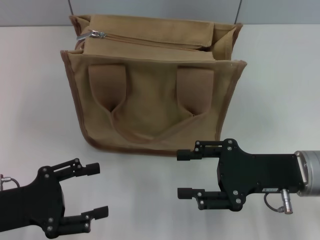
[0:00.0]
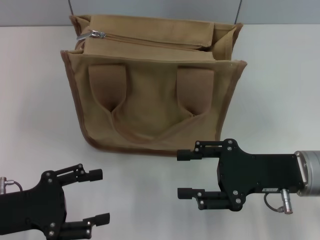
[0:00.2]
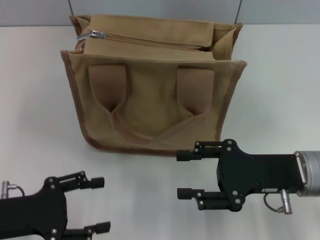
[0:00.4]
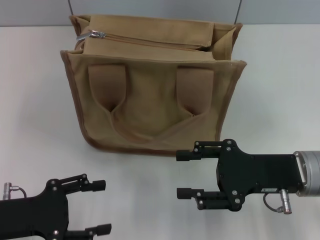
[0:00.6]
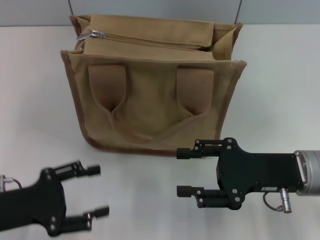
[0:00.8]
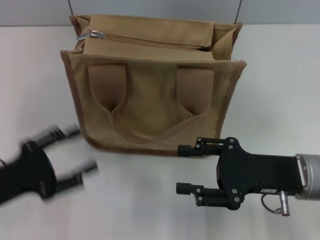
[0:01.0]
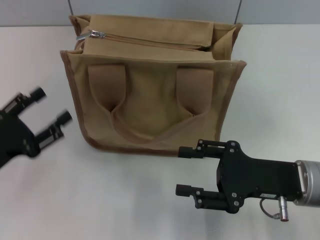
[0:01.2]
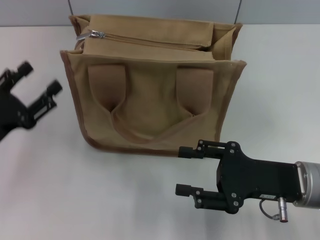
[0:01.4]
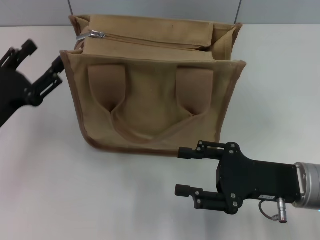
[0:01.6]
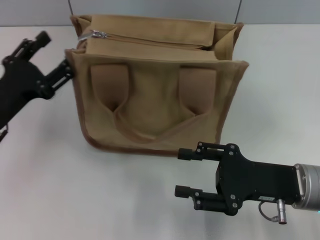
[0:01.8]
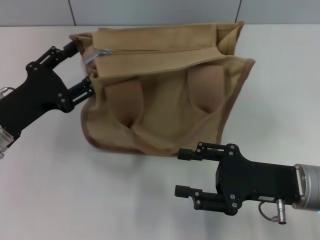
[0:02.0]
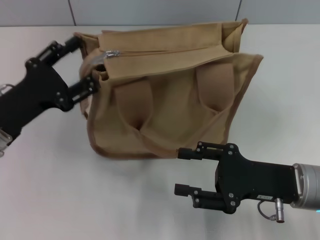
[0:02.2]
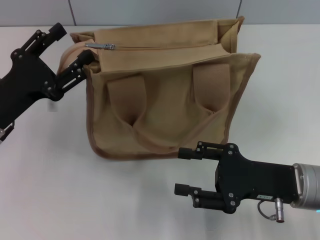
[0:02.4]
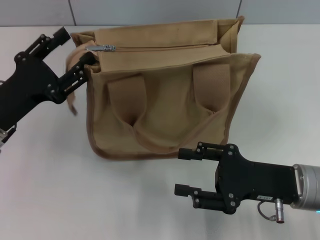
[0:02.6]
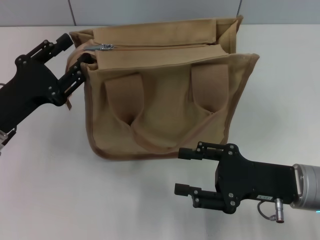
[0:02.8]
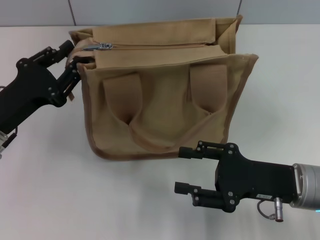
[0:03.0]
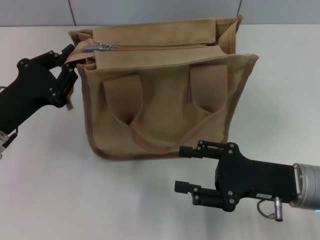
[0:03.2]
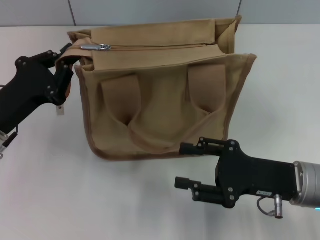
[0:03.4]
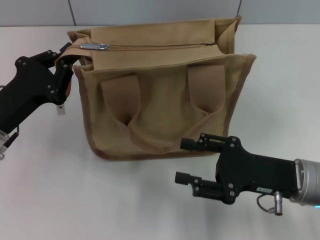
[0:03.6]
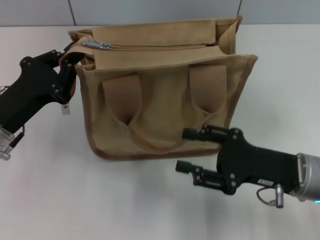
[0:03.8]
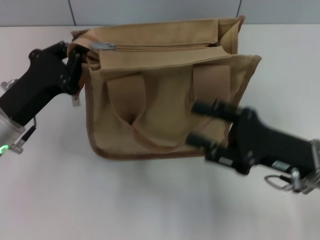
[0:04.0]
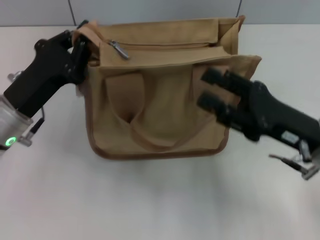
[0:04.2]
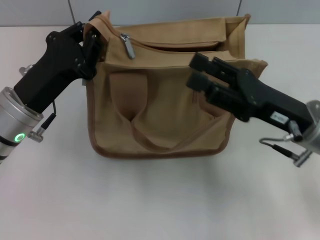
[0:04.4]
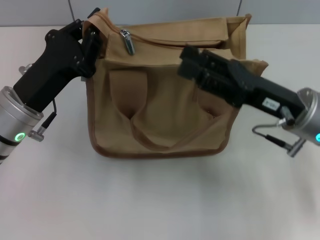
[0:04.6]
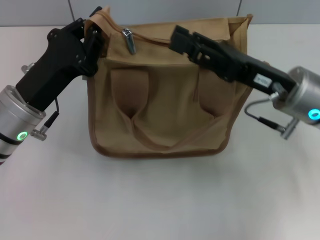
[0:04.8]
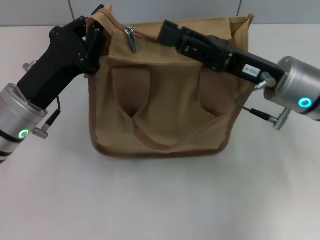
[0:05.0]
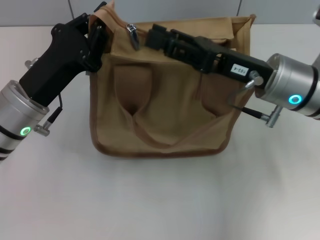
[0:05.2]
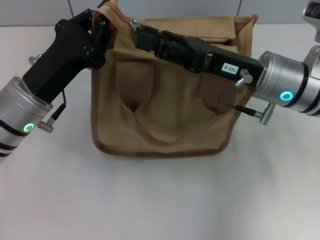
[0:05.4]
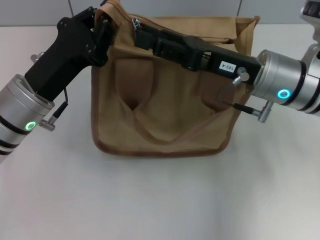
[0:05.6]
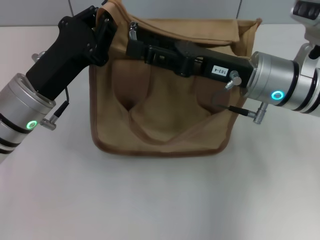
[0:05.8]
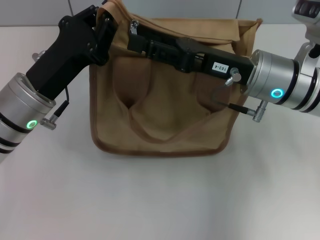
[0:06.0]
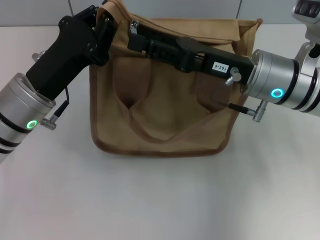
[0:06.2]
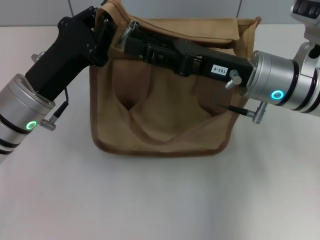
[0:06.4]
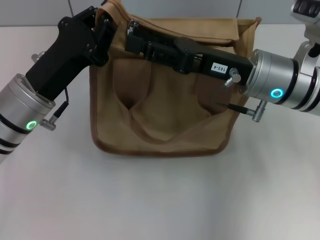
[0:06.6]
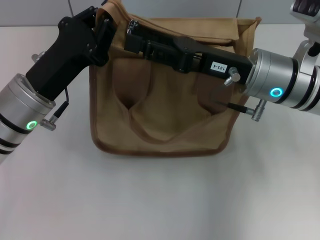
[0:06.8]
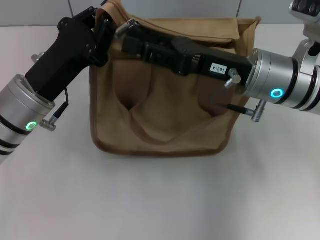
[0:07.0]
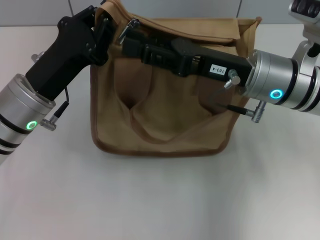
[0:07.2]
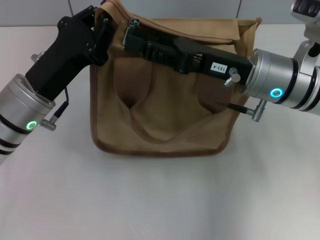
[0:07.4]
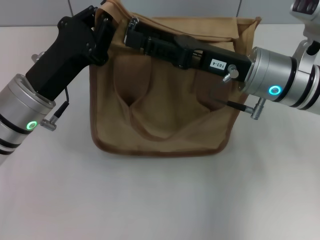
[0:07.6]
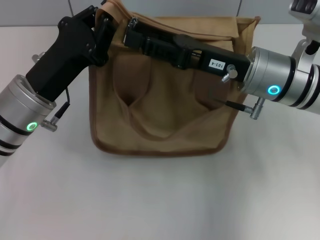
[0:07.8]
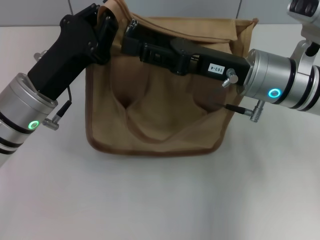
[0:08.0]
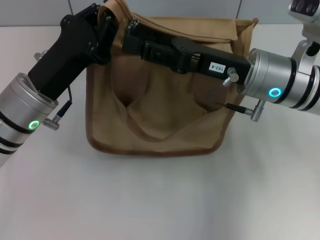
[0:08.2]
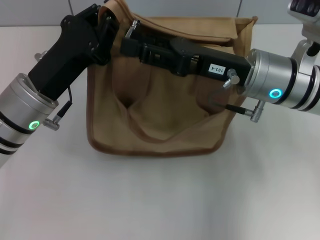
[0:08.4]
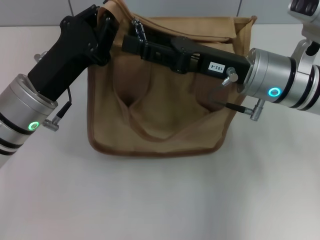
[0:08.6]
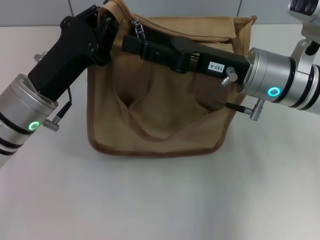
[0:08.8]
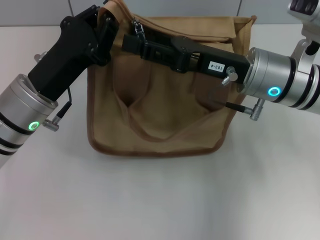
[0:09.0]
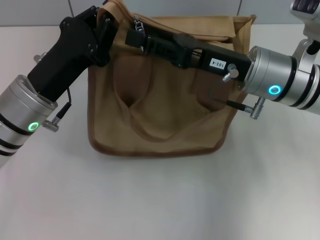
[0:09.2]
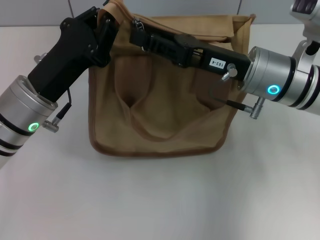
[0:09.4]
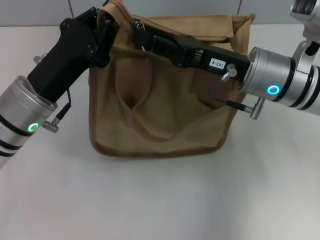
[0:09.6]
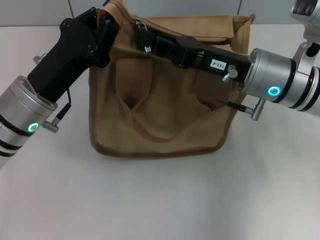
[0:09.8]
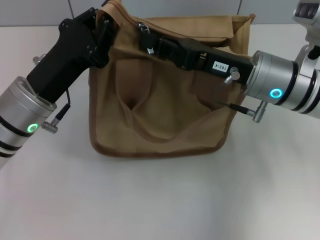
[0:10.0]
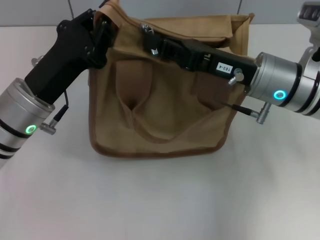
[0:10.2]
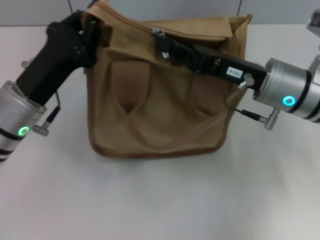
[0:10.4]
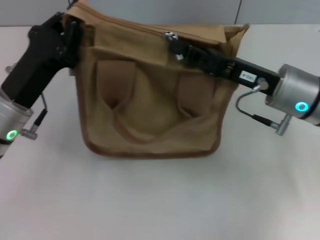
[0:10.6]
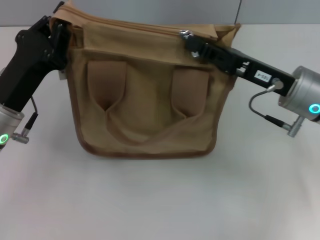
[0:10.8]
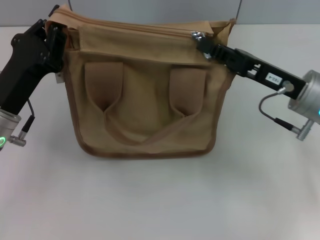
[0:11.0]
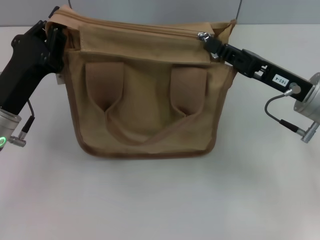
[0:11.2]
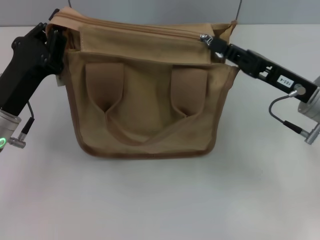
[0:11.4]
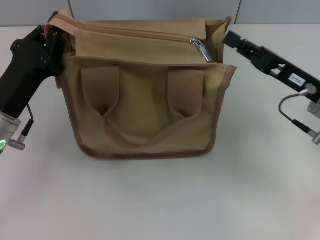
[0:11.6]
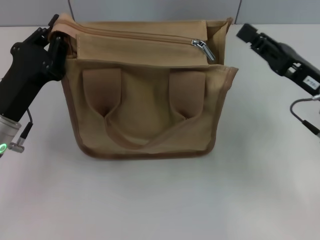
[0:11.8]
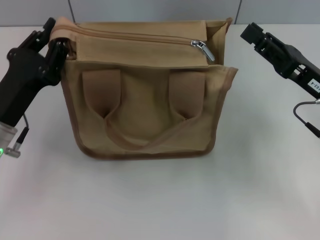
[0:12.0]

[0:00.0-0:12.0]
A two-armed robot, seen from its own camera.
Step, 0:00.0 to 0:11.4: Pull up the zipper with your right hand.
0:00.0 to 0:01.6: The left gripper goes roughly 5 cm forward.
0:01.6 to 0:03.0: The left gripper closes its fingers.
0:03.0 to 0:04.4: The left gripper is displaced to the right by approximately 5 cm, and closes up. Meanwhile the right gripper shifts by approximately 5 cm.
0:04.4 to 0:06.0: The right gripper moves forward and to the left, about 10 cm.
0:06.0 to 0:09.0: The two grippers keep their place.
0:09.0 to 0:10.4: The right gripper closes.
0:10.4 to 0:12.0: The left gripper changes place by some 5 cm. Meanwhile the right gripper heads to the right, covering roughly 10 cm.

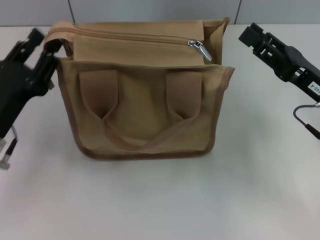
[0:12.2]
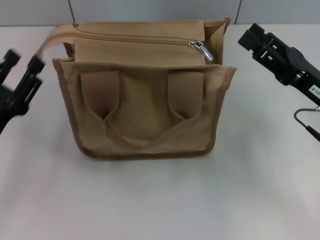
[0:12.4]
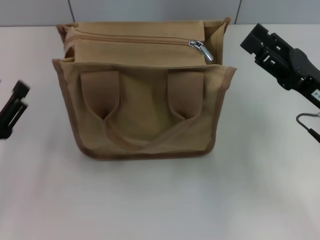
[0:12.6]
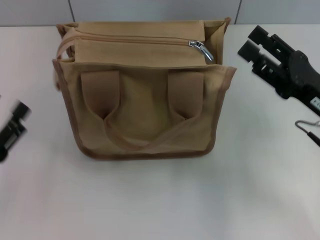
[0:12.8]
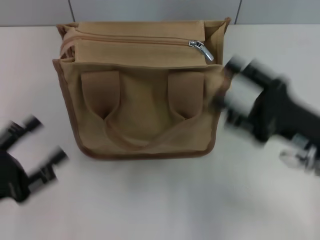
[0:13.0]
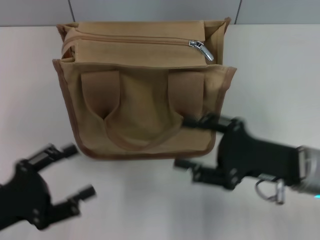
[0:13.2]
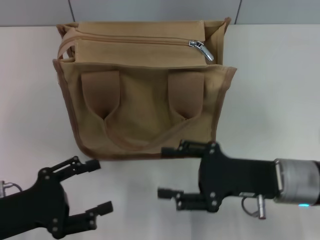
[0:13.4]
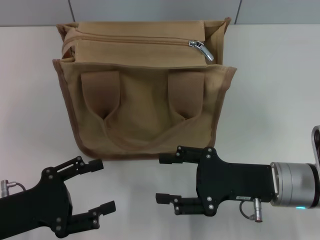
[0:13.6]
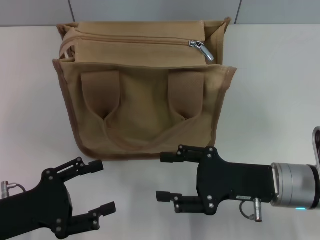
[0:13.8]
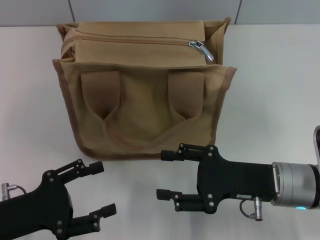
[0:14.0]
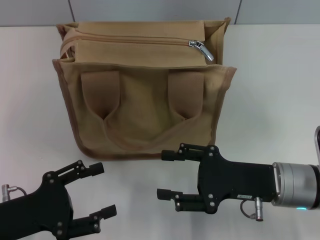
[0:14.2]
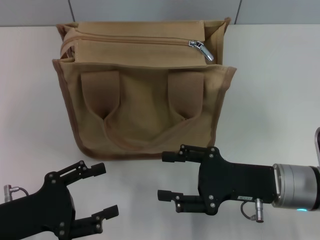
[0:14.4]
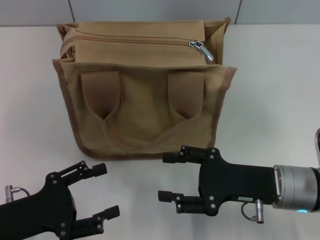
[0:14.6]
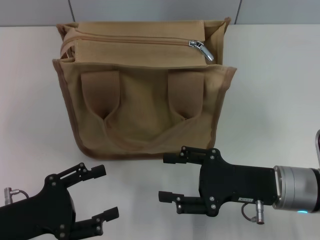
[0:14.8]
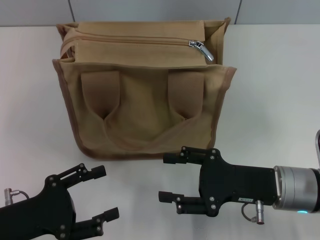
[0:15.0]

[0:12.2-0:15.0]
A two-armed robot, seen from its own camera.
0:12.2 to 0:13.6: The right gripper travels to the left by roughly 5 cm, and opens. Meanwhile the left gripper is displaced backward by roughly 5 cm, and opens its fingers.
0:13.6 to 0:15.0: The two grippers keep their place.

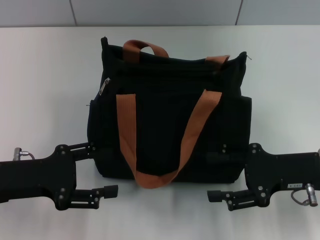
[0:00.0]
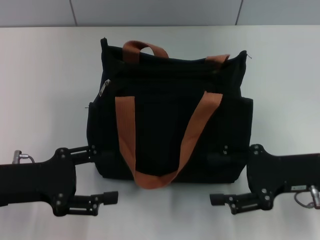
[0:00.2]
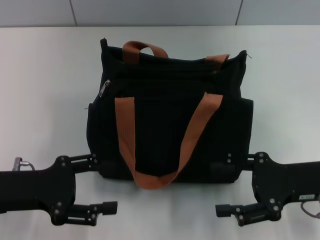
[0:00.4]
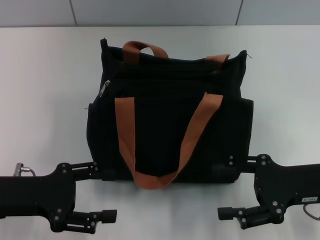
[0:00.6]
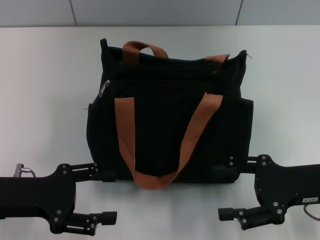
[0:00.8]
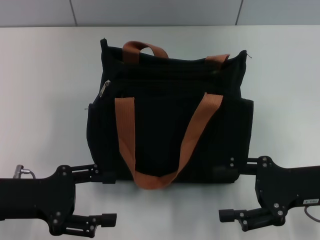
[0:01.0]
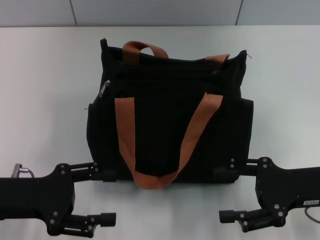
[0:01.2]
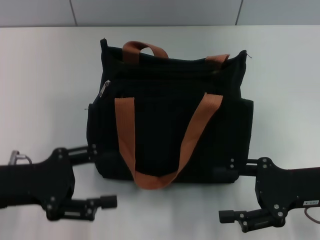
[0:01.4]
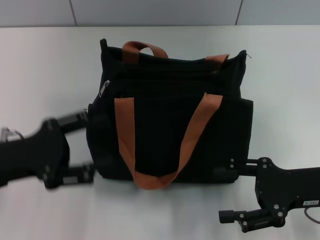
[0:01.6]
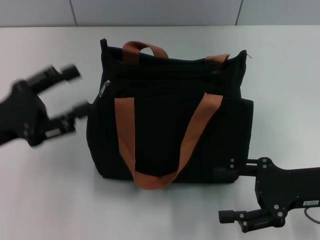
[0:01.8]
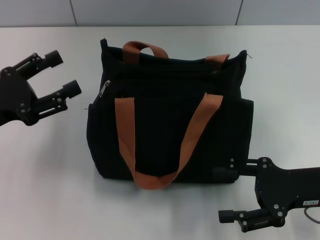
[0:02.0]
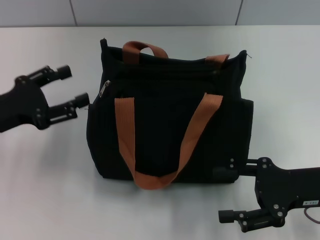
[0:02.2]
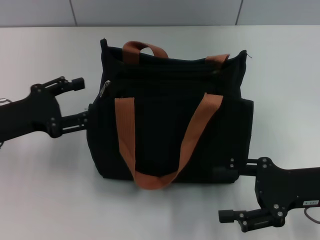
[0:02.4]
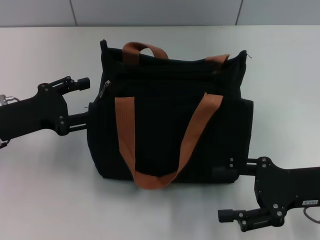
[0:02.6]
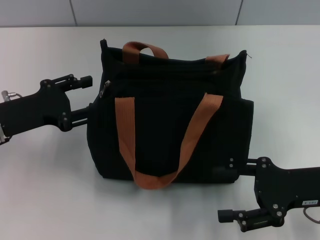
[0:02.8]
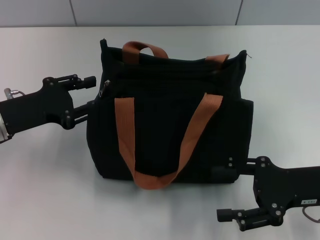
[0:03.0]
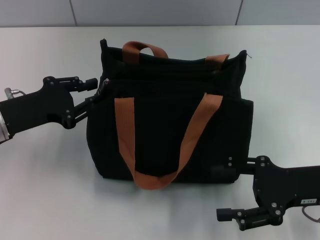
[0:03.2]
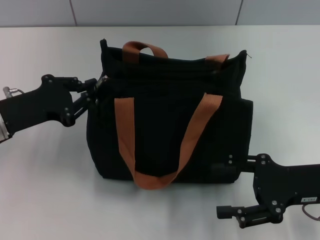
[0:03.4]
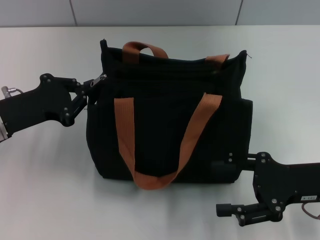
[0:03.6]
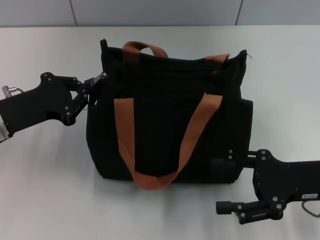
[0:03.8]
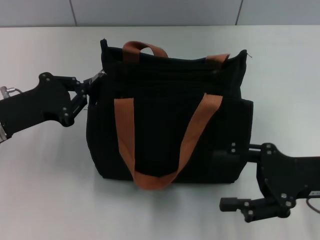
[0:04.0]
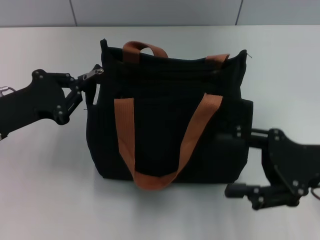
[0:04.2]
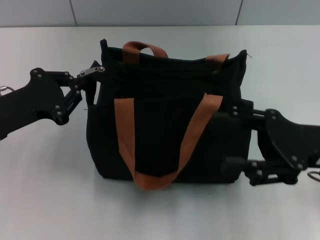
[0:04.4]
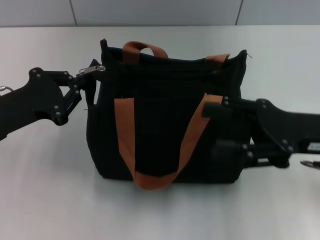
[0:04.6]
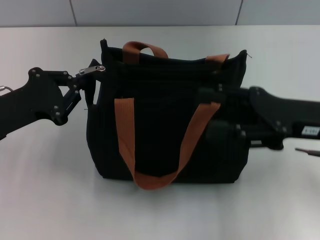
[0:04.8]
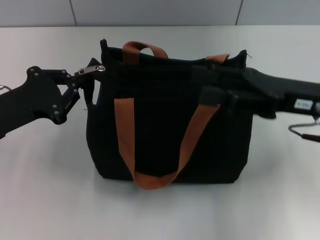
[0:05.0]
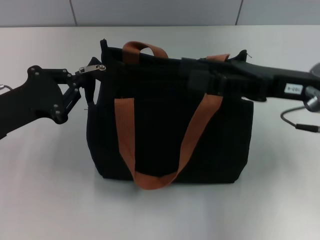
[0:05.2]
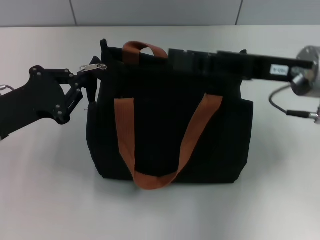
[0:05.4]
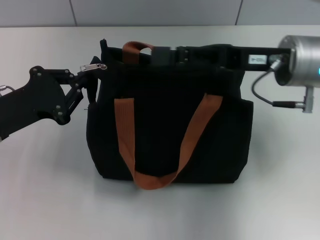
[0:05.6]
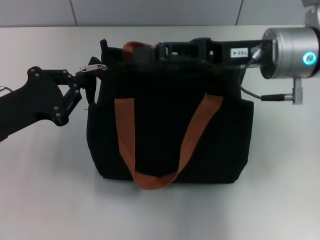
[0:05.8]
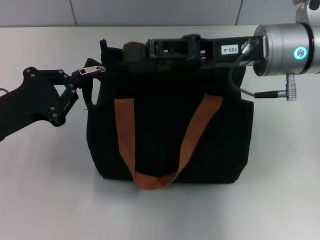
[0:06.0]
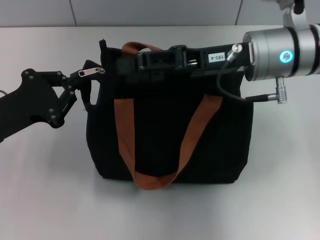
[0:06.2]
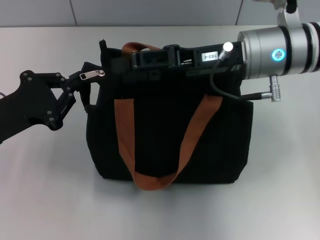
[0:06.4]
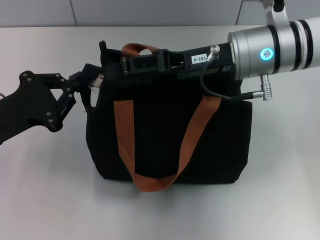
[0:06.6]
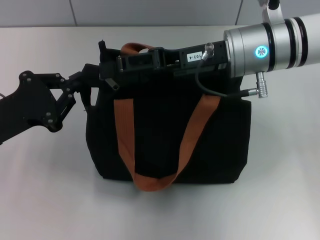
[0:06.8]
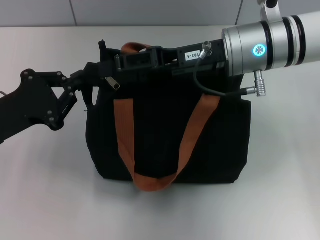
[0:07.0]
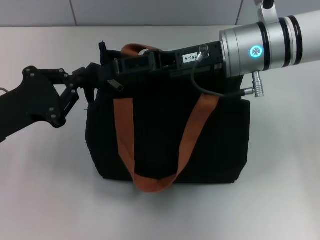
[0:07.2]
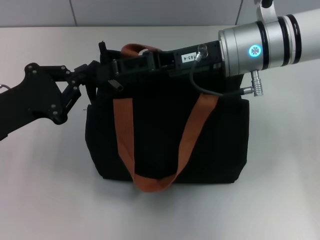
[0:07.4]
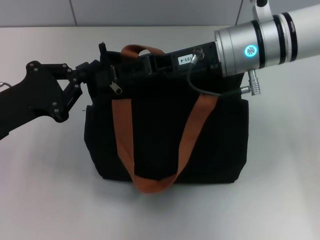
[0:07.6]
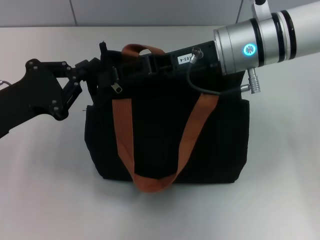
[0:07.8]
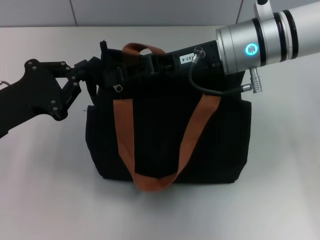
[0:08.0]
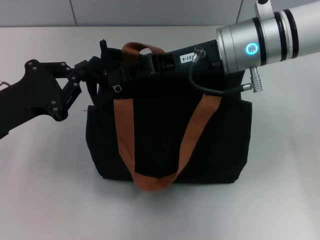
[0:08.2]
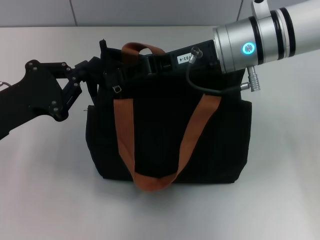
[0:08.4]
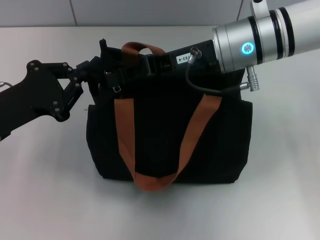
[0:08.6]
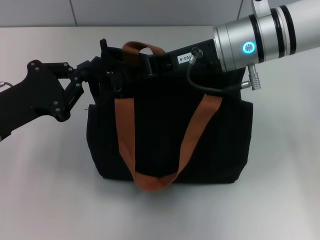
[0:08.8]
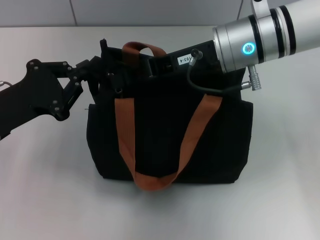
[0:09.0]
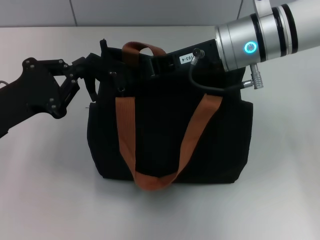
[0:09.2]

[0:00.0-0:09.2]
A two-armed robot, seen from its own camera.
0:00.0 to 0:01.6: There are only small adjustments of the grippers.
0:01.6 to 0:03.0: The left gripper is displaced forward by approximately 5 cm.
0:03.0 to 0:04.6: The right gripper changes place by approximately 5 cm. The left gripper closes up.
0:04.6 to 0:06.2: The right gripper goes approximately 15 cm to the left and forward.
0:06.2 to 0:07.6: The grippers make only small movements.
0:07.6 to 0:09.2: The right gripper closes.
